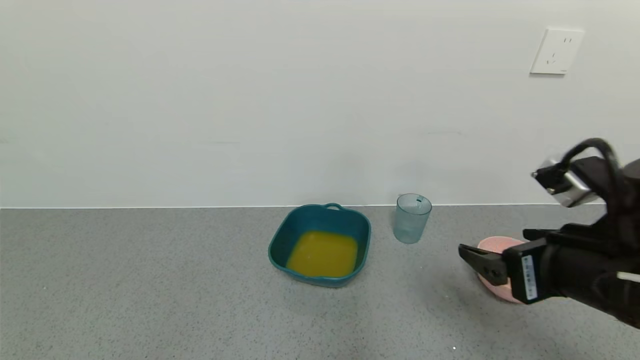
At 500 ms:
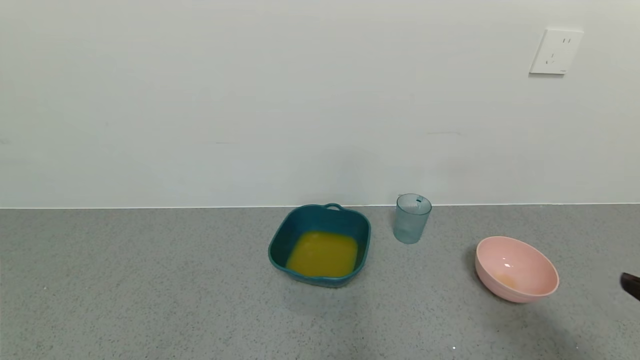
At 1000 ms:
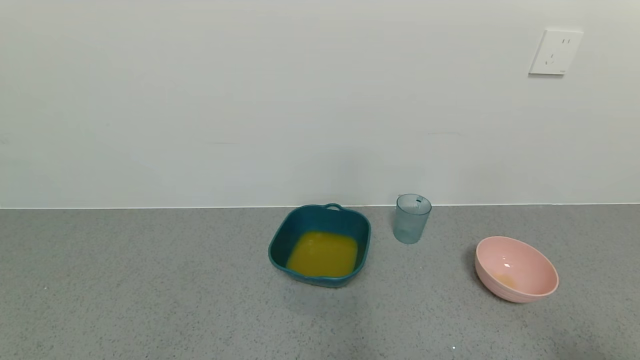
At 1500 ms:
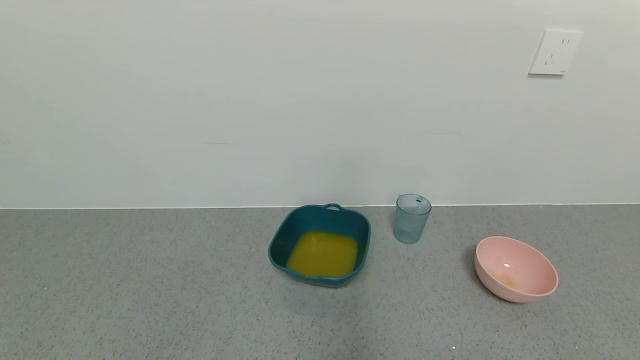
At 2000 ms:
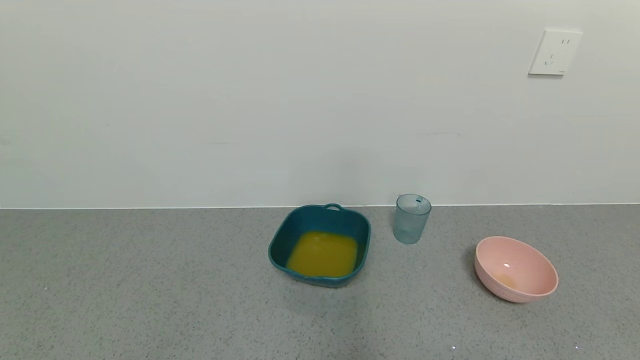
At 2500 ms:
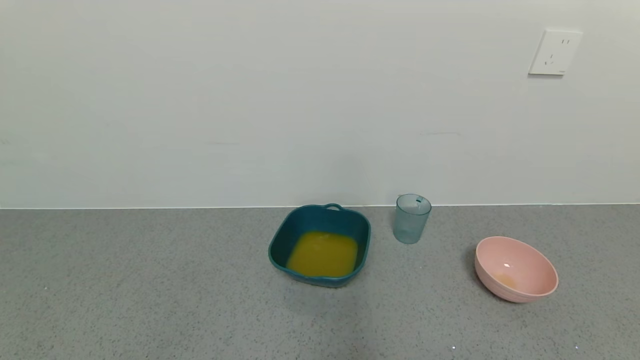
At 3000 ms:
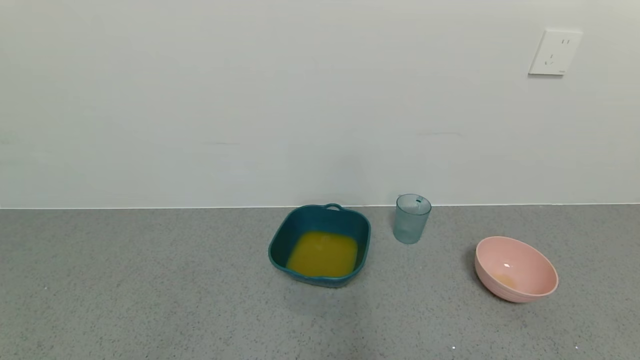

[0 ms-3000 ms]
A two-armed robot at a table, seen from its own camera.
Task of the whole recording: use a gripper to pick up the cup and pour the liquid into a bowl or tray.
0 ms to 1500 ms: The right gripper heads backward and to the right, covering approximately 25 cm.
